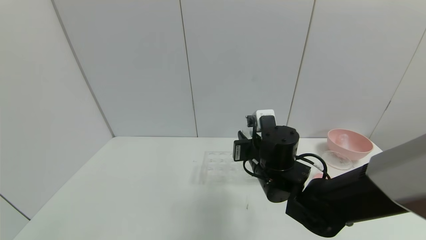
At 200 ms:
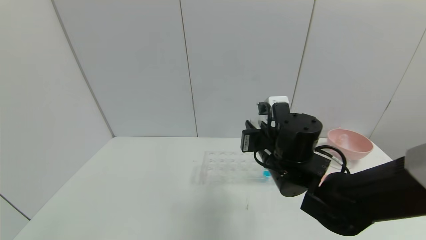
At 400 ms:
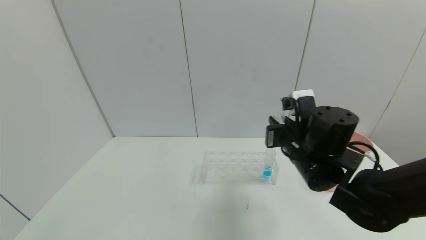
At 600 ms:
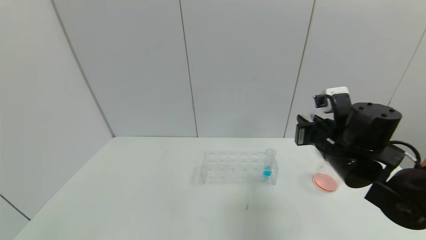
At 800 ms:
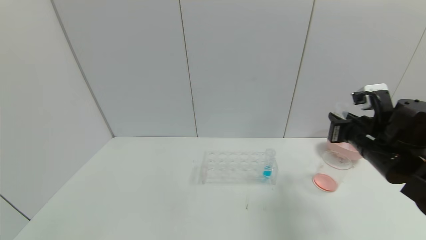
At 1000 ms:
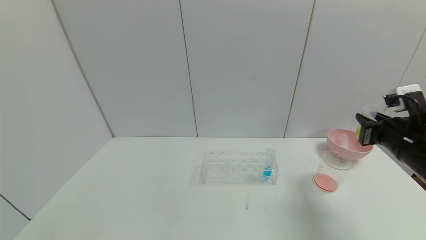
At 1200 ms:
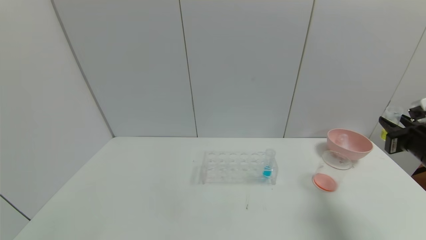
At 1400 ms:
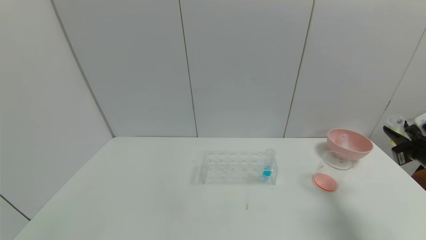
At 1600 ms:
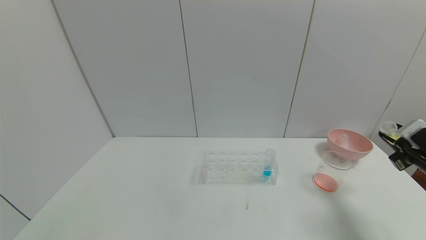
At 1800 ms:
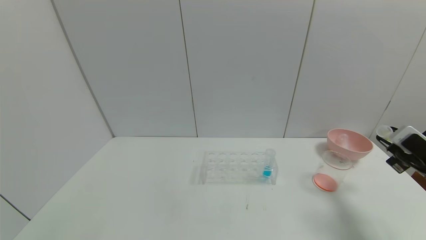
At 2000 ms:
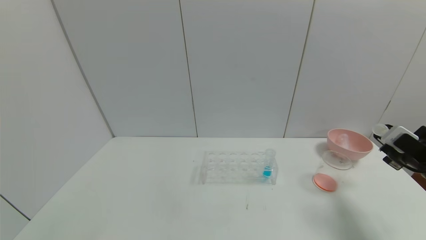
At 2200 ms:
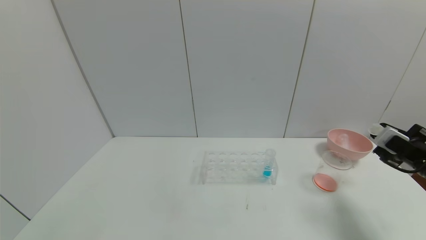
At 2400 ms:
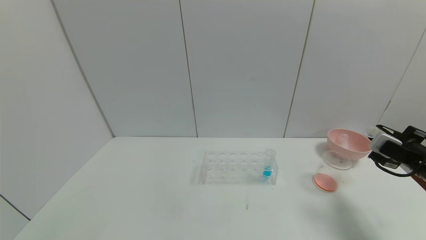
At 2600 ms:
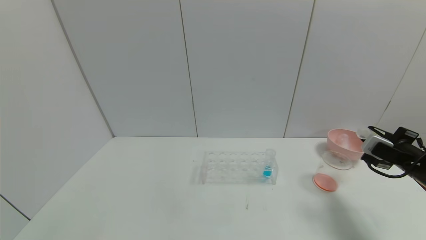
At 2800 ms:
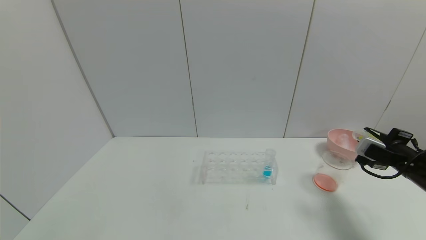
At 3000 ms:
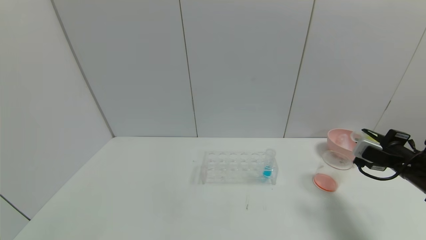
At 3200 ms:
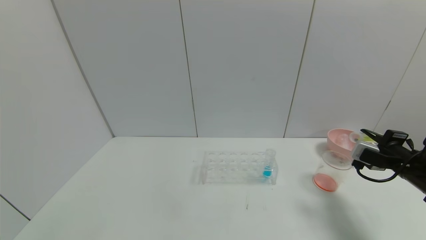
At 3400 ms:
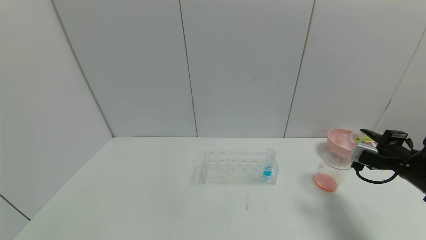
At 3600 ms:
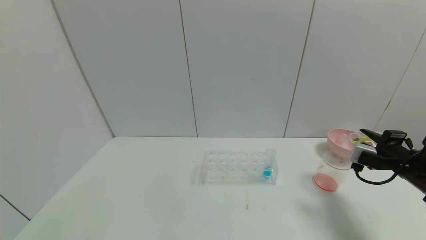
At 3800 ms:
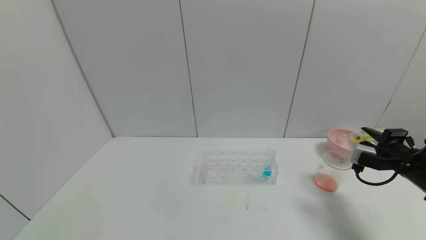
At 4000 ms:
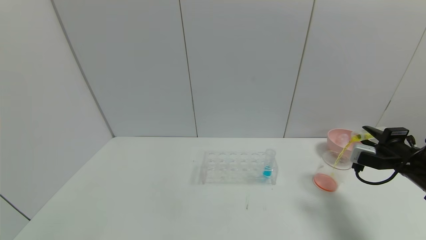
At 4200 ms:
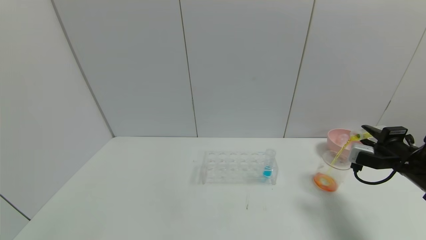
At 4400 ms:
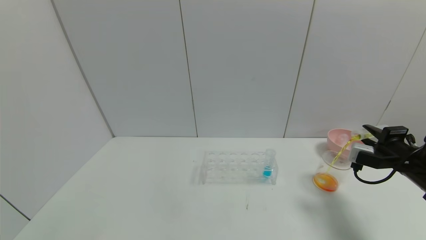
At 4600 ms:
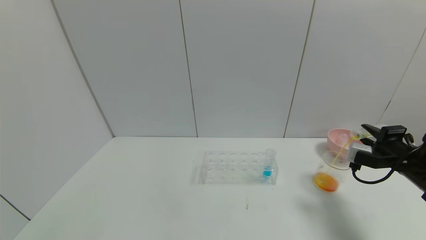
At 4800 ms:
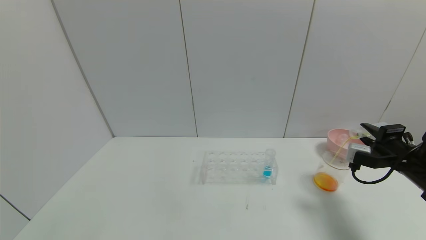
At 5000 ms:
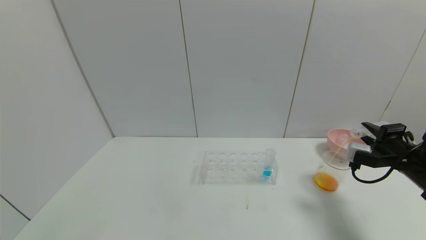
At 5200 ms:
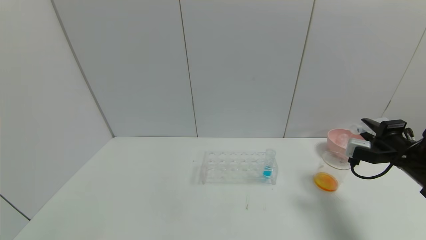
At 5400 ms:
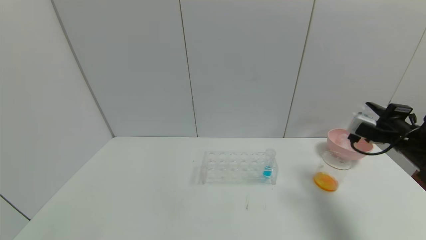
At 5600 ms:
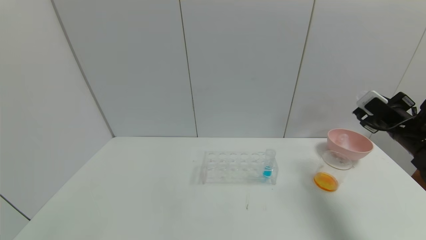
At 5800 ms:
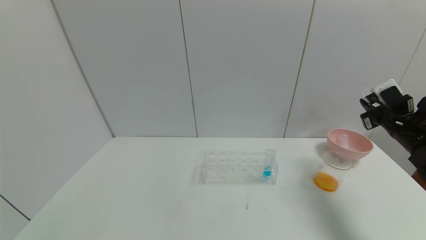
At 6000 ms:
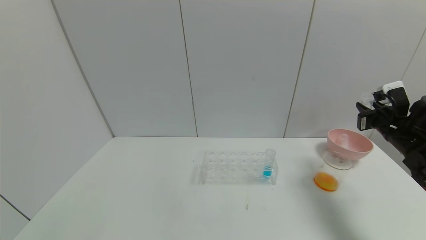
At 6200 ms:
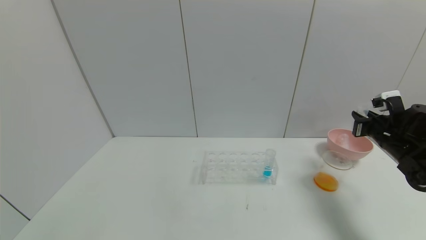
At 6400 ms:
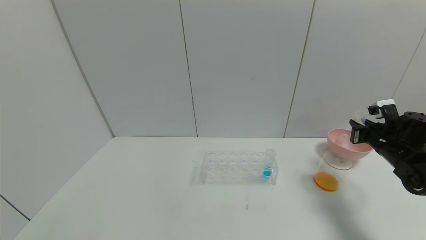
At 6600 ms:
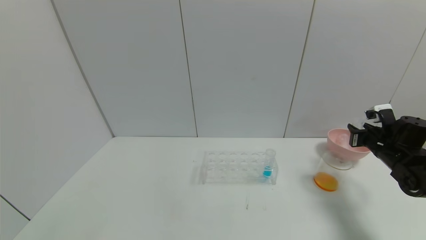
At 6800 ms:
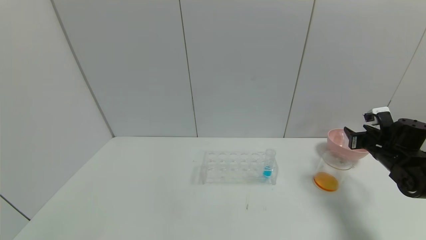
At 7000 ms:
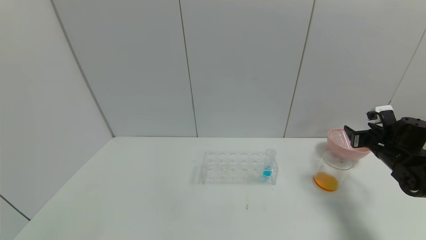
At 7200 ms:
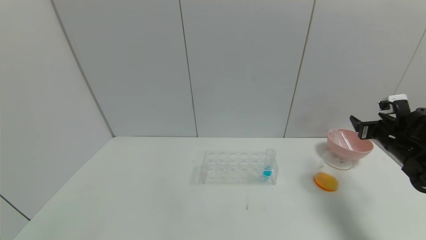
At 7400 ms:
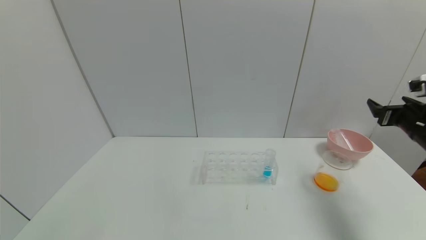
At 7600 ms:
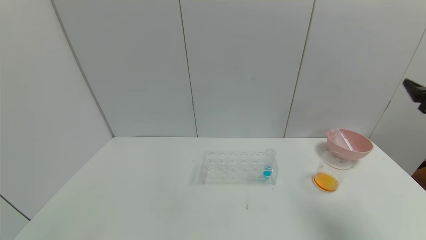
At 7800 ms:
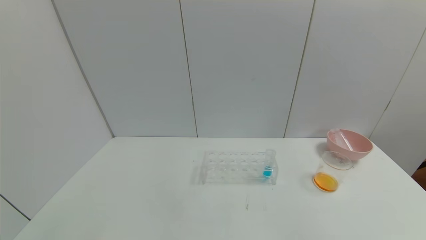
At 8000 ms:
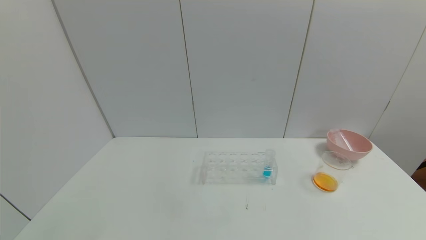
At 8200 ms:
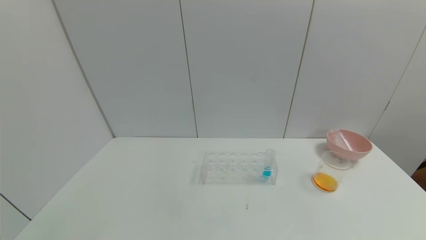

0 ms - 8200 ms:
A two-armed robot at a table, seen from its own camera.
Task of the whole recording: pick up the test tube with yellow pigment and the test tube with red pigment by grippers and pour them into the beaker.
Step, 0 ms - 5200 ms: Pour the yellow reagent into the graduated cylinder with the right gripper.
Step, 5400 ms - 7000 ms: Place the test tube into the pink bowl with the right gripper.
0 ms - 1600 ms: The right gripper goes some 35 cm to the right.
1600 ms - 3200 ms: The right gripper moves about 5 cm.
3200 ms - 5000 ms: There are only small adjustments of the grippers.
5000 ms - 6600 ms: The right gripper heads forward, covering about 5 cm.
6600 ms - 8200 ms: The right gripper heads backward, covering approximately 40 cm, and opens its fingers.
